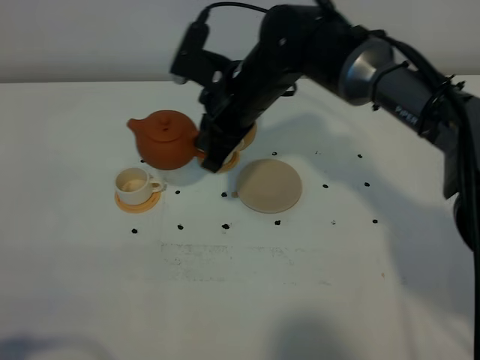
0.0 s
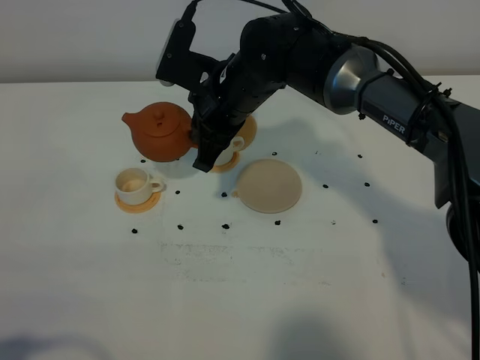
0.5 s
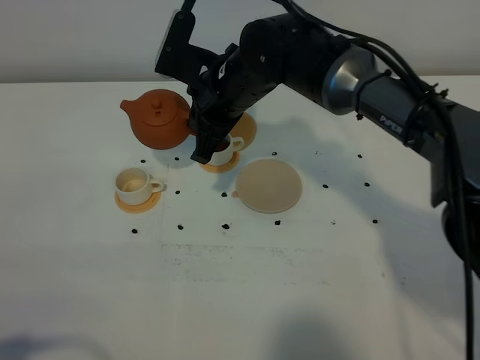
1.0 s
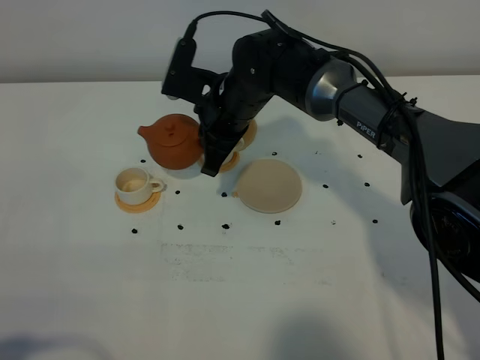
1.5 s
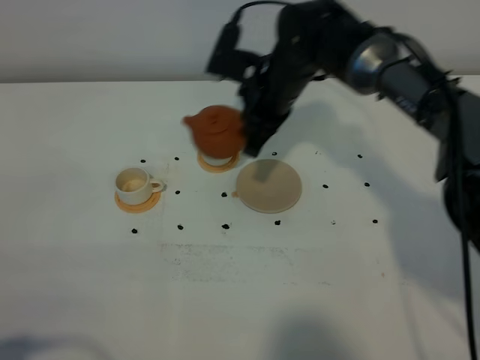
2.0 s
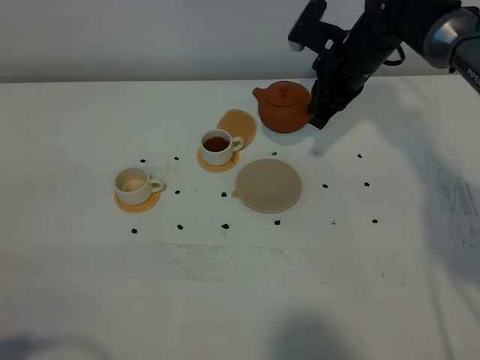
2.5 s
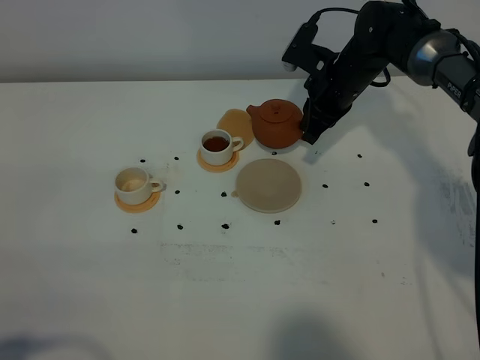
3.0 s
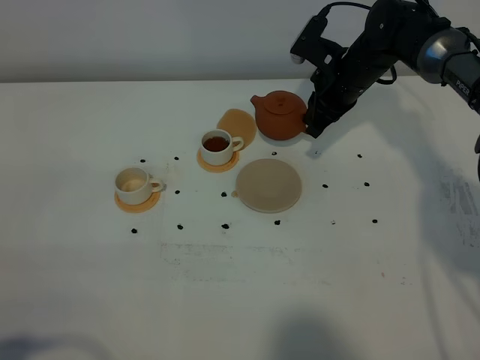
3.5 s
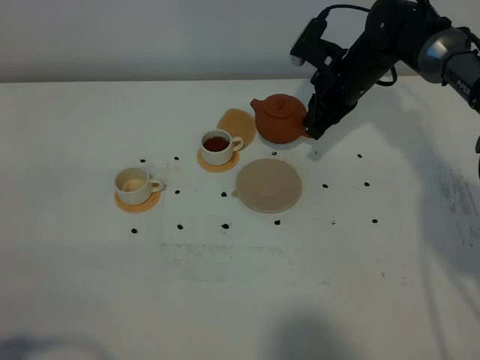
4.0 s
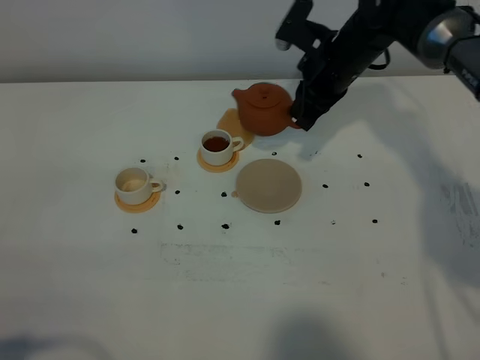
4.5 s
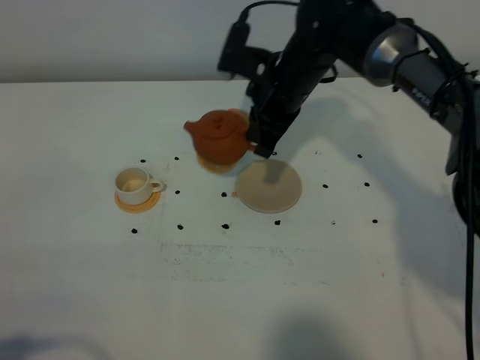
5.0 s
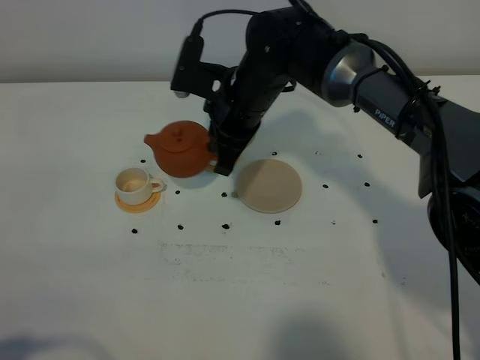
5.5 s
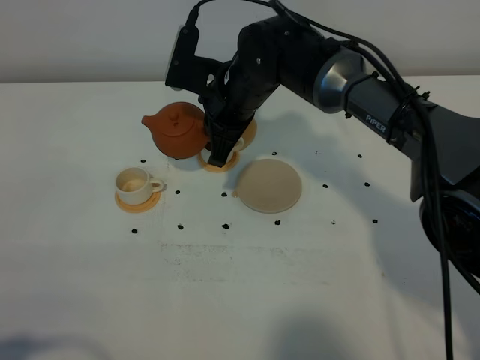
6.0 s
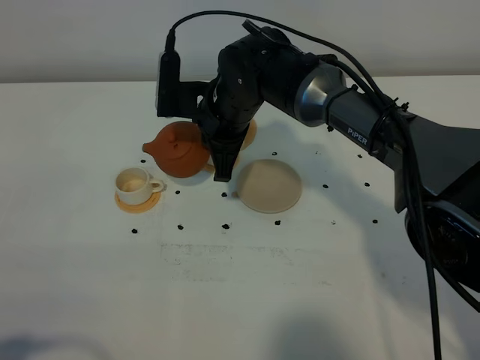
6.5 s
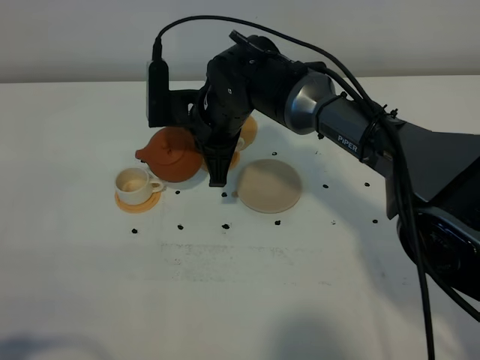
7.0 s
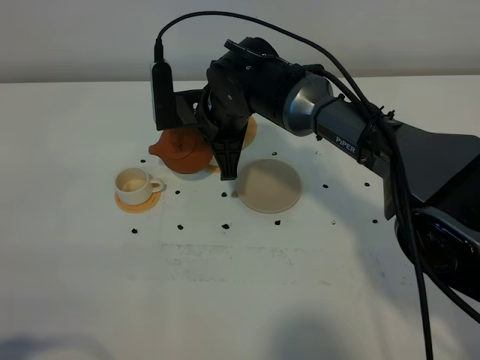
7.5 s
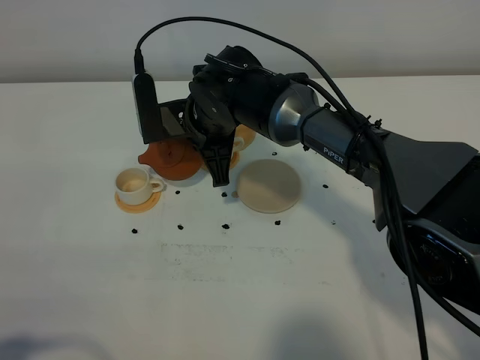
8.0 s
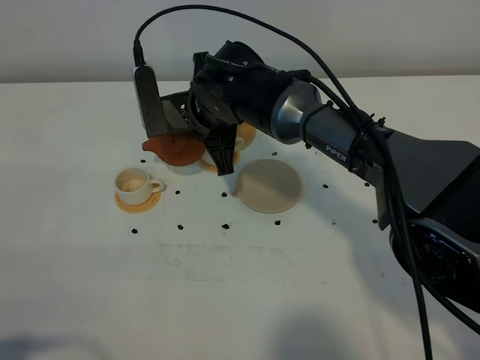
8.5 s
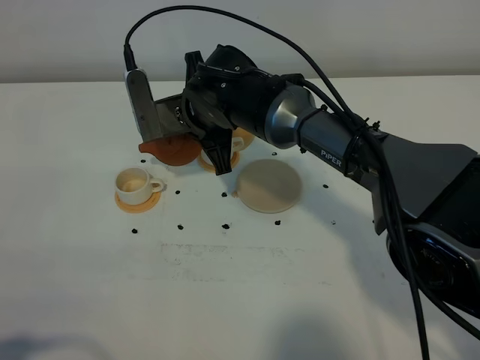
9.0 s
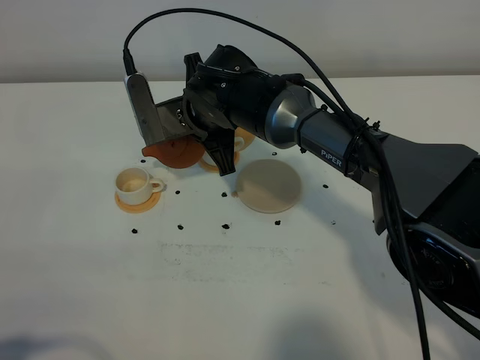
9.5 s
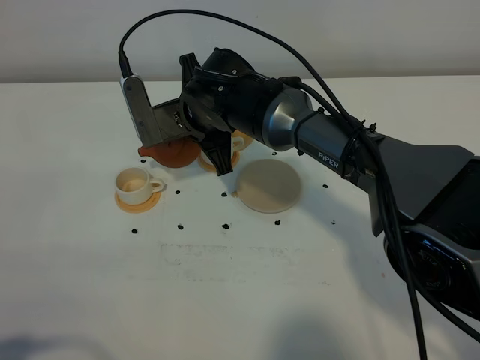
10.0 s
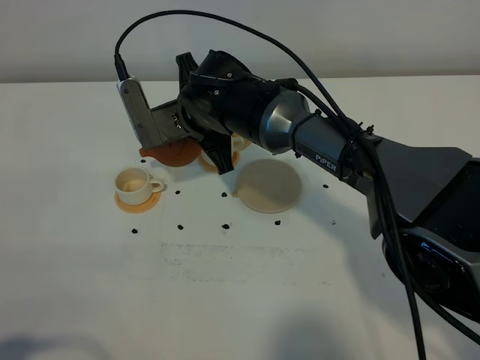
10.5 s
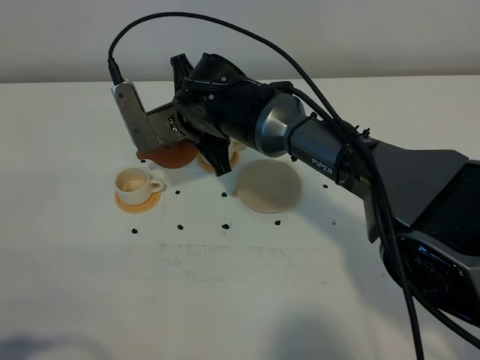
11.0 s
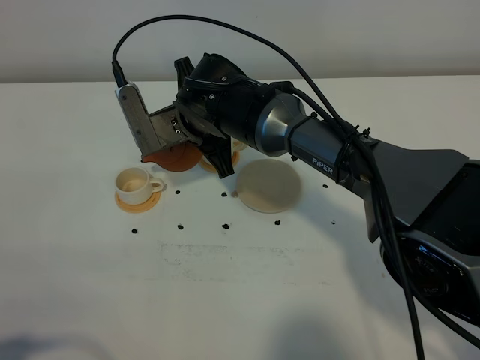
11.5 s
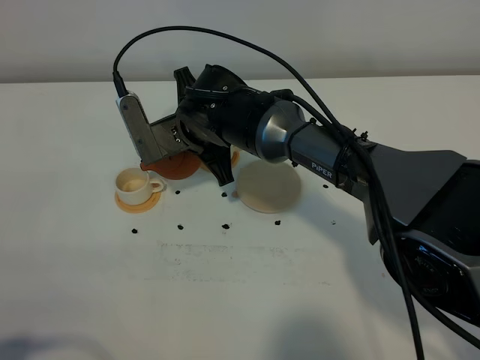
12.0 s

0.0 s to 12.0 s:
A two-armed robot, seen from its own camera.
Task of the whole recording: grasp the brown teapot and pour the tea into the two white teacups one by one, put the brown teapot back in its original place.
0.0 to 2.0 s: The right gripper moves forward and to the right, approximately 5 cm.
2.0 to 4.0 s: The right gripper heads to the right and forward, covering roughly 10 cm.
4.0 to 6.0 s: The right gripper is displaced to the left and backward by about 15 cm.
8.0 to 12.0 s: The grippers make only small movements.

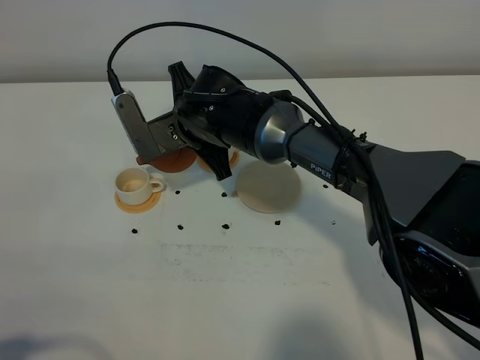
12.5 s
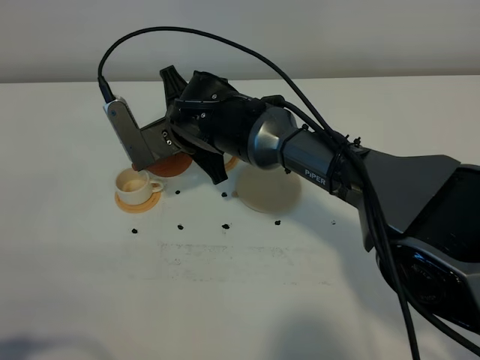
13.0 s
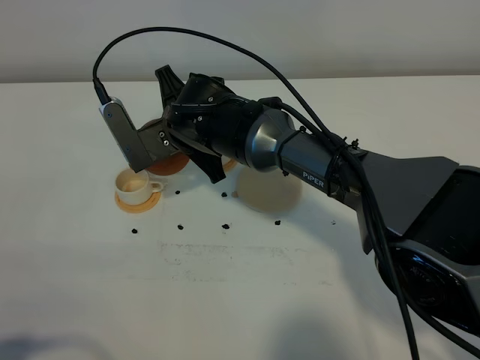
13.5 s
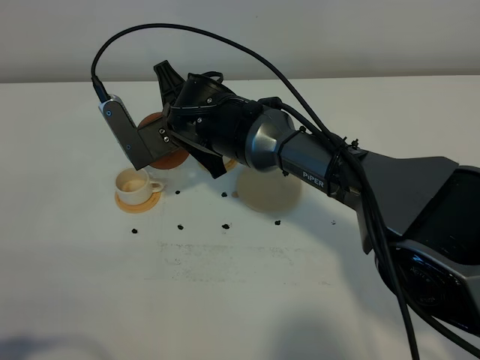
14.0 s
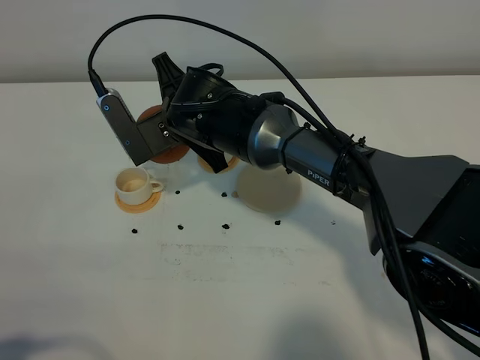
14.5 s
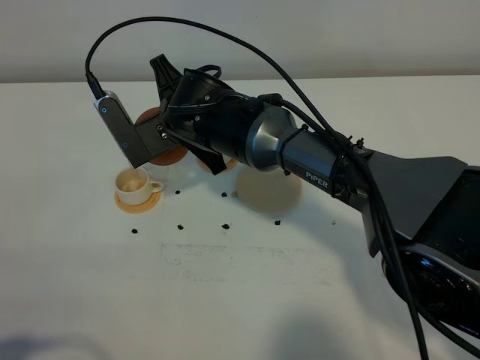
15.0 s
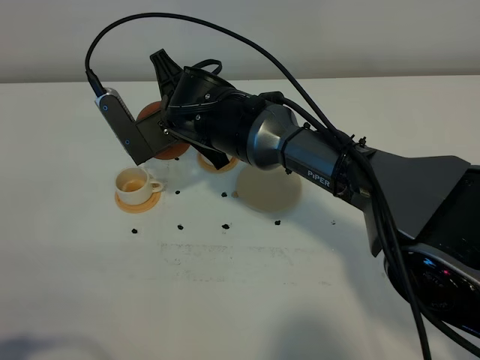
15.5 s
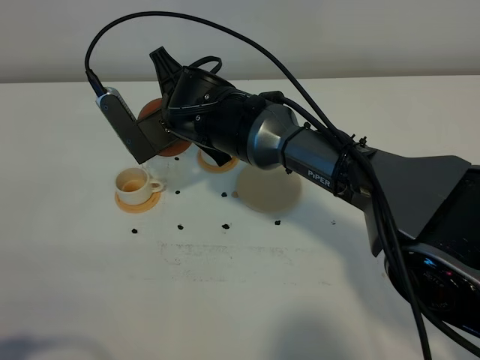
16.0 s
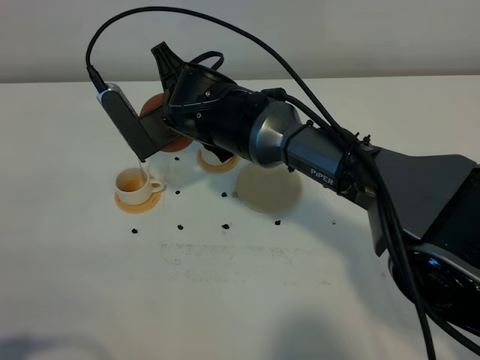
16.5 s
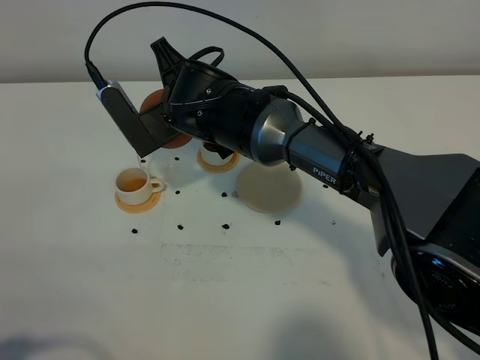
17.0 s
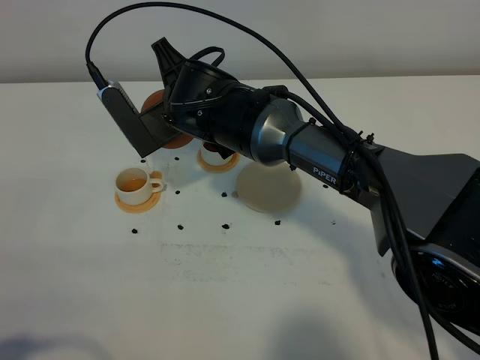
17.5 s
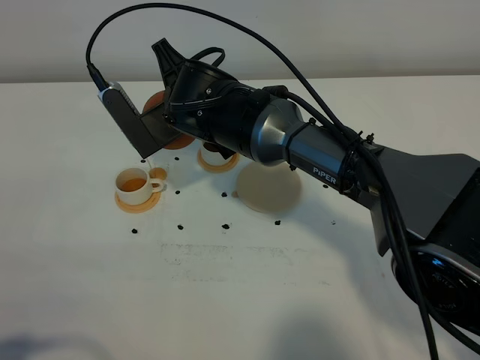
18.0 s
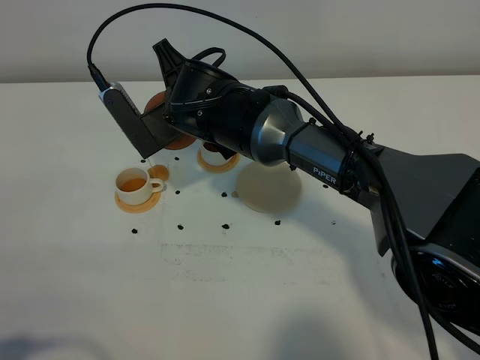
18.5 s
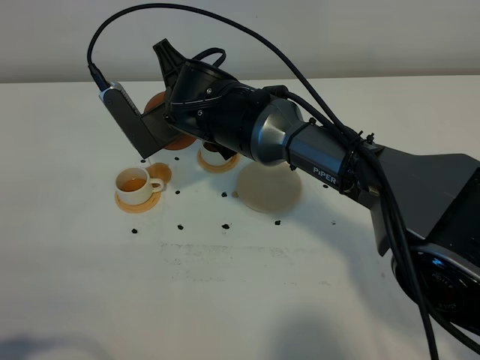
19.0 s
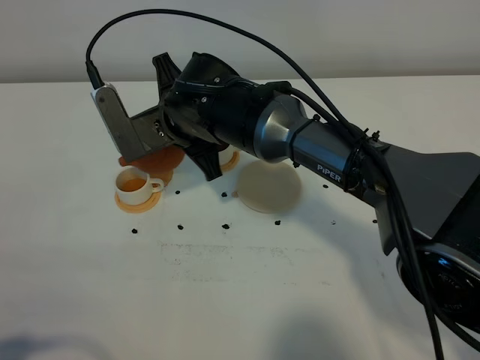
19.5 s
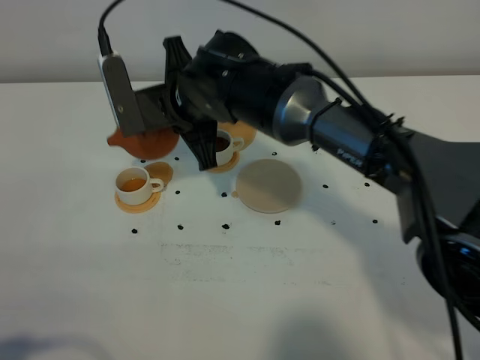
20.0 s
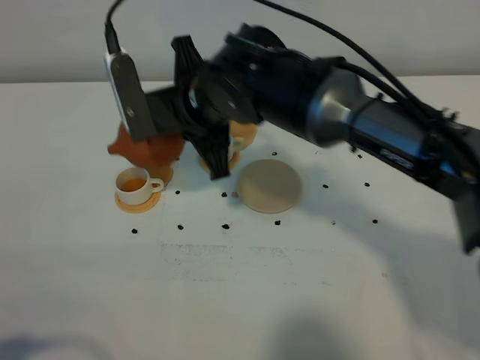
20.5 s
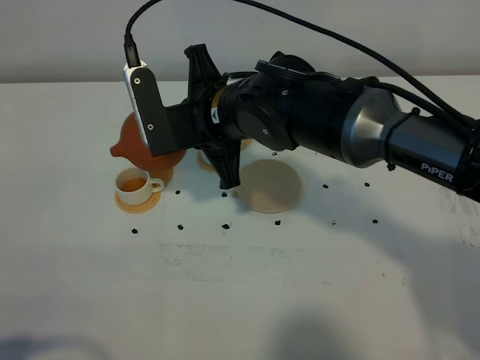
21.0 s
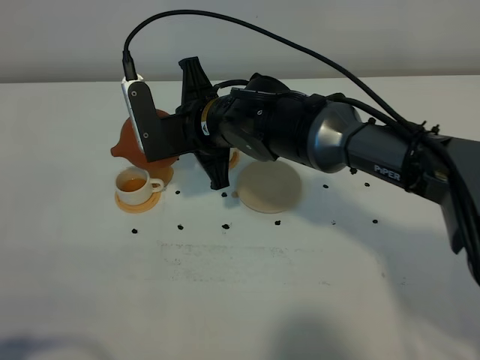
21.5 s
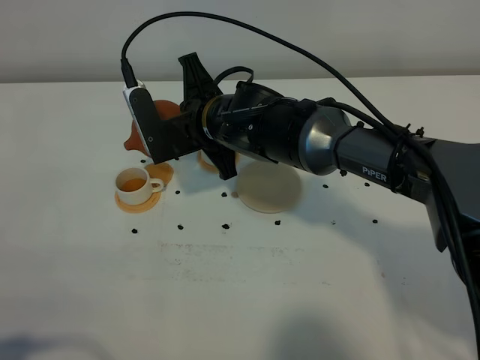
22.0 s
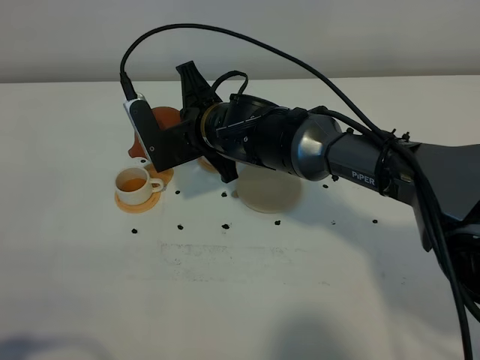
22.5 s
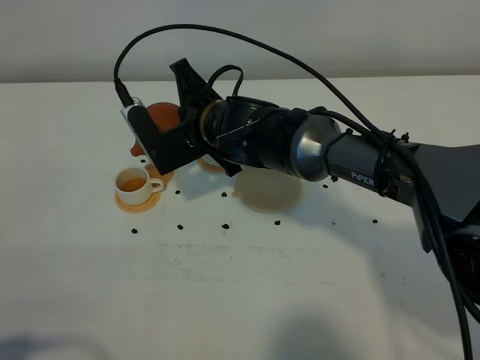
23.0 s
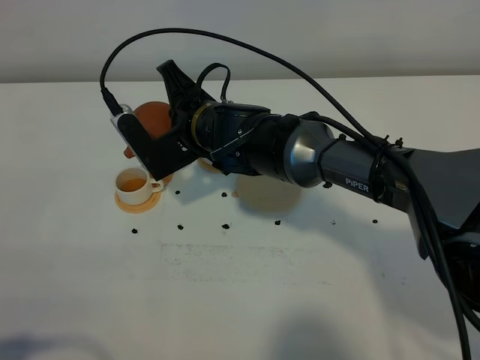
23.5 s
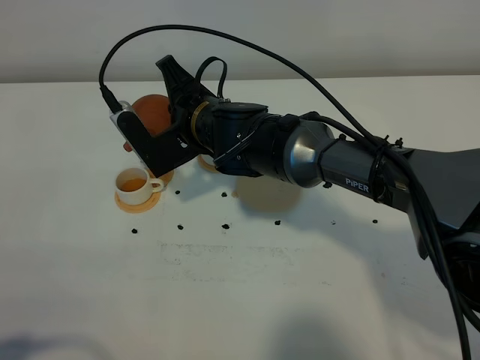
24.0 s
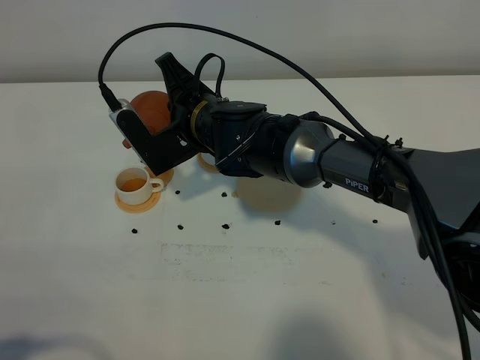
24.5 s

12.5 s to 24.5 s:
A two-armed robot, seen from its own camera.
Task of the whole recording: grasp the brown teapot and pour the tea into the two white teacups one by one, put the brown teapot back in its original place.
12.5 to 16.5 s: The grippers make only small movements.
16.5 to 18.5 s: Both grippers stay put.
18.5 to 20.5 s: The right gripper ends up roughly 5 cm from where it was.
20.5 to 22.5 s: The right gripper travels downward by approximately 5 cm.
22.5 to 24.5 s: The grippers stay close to where they were, moving slightly.

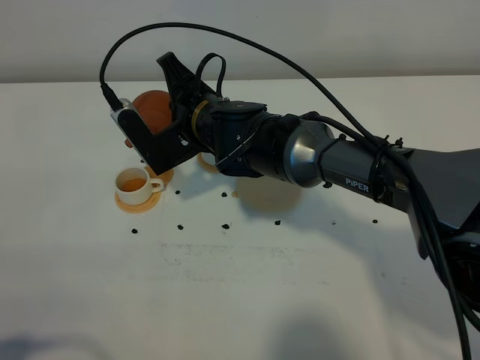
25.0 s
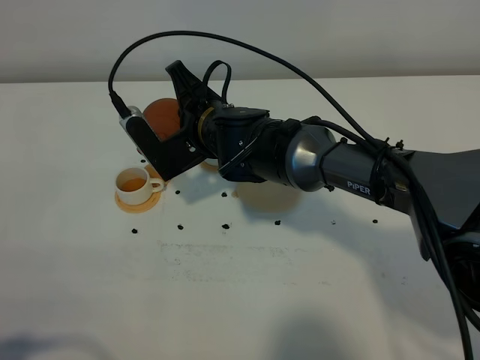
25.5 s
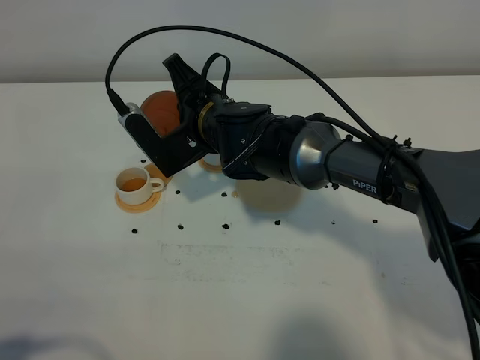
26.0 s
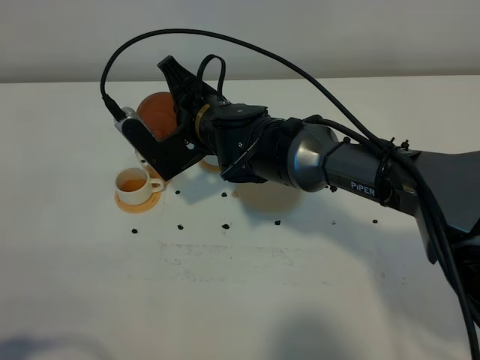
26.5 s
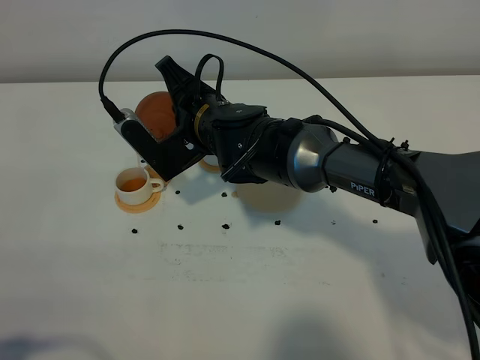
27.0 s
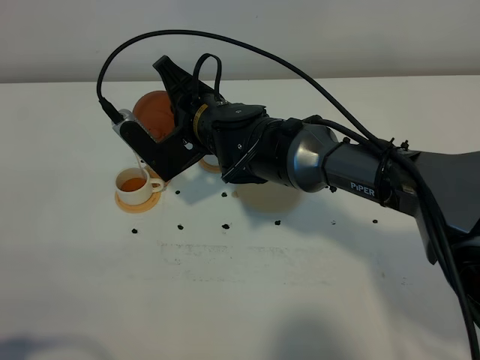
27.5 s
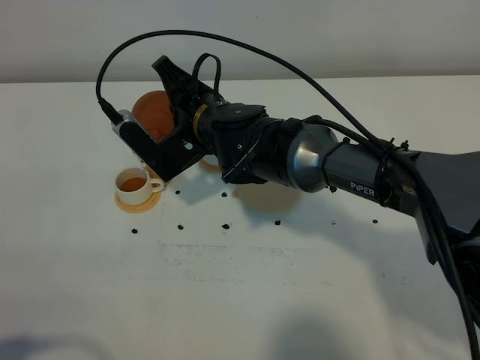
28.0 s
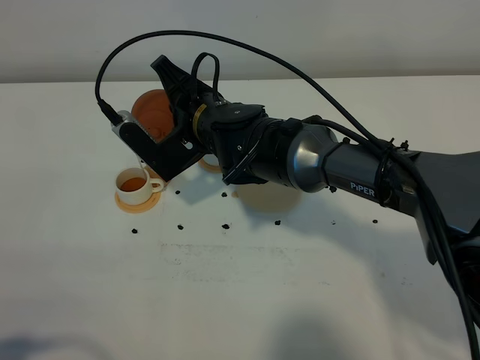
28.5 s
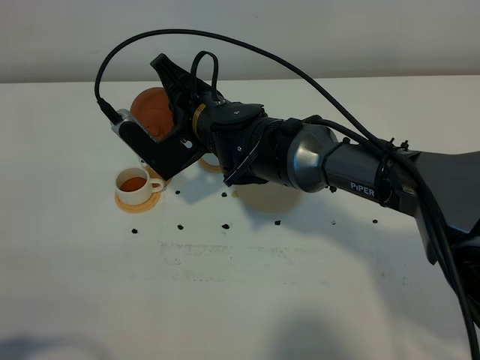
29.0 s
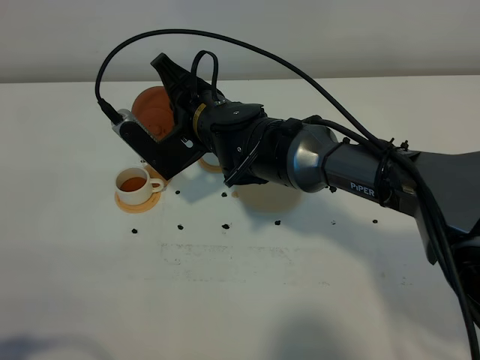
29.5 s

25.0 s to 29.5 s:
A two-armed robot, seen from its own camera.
Task of the whole recording: grasp the brown teapot and pour the tea into the two white teacups one by one, put the brown teapot back in its original place.
25.0 to 27.0 s: The grippers stay close to where they were, moving slightly.
27.0 to 29.5 s: The two grippers keep their place.
